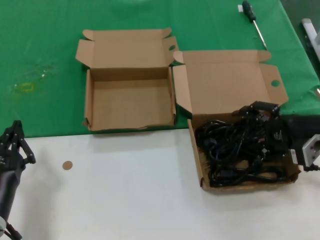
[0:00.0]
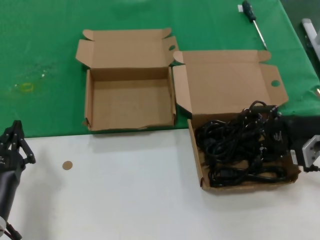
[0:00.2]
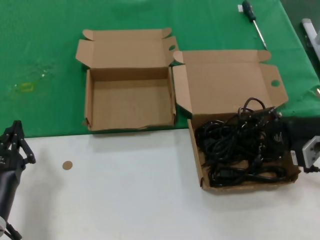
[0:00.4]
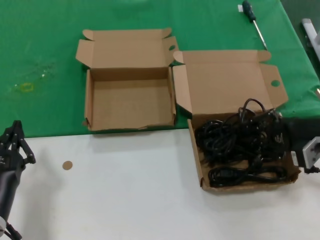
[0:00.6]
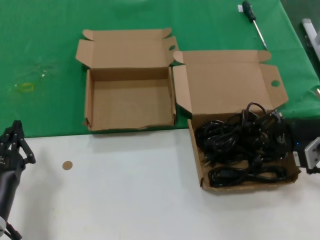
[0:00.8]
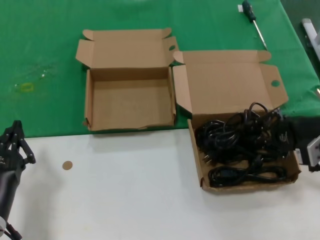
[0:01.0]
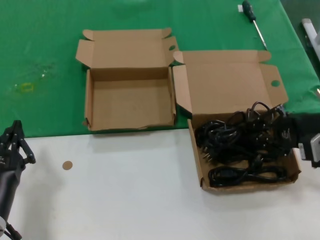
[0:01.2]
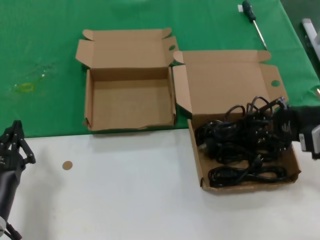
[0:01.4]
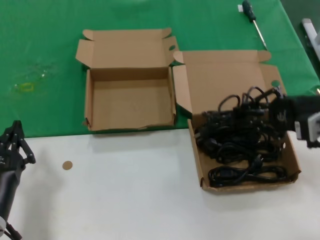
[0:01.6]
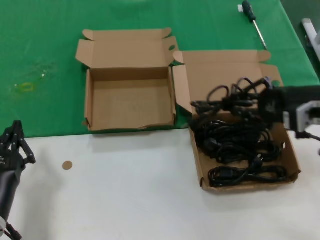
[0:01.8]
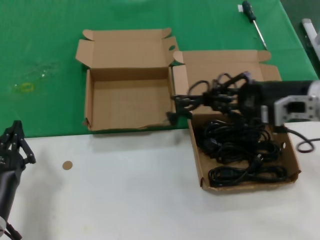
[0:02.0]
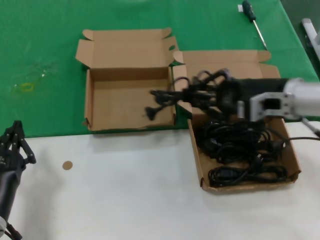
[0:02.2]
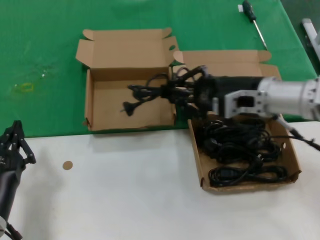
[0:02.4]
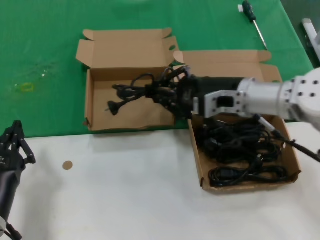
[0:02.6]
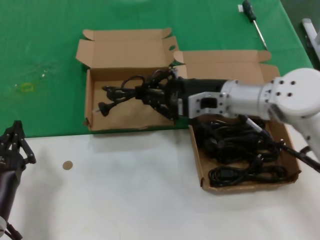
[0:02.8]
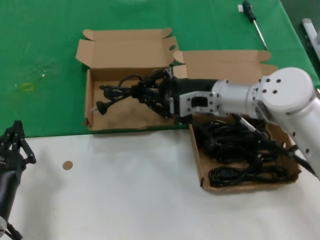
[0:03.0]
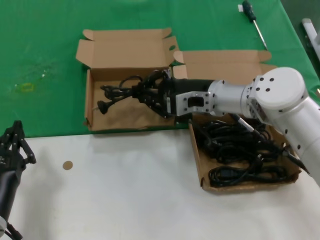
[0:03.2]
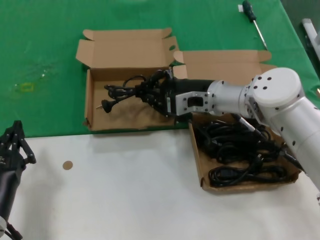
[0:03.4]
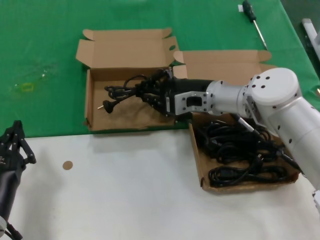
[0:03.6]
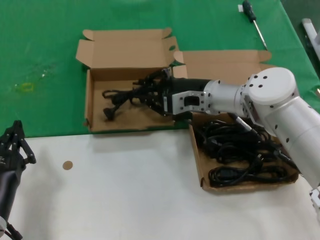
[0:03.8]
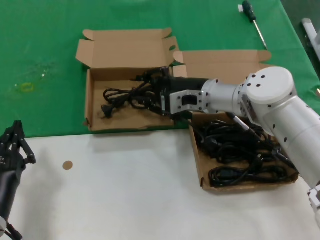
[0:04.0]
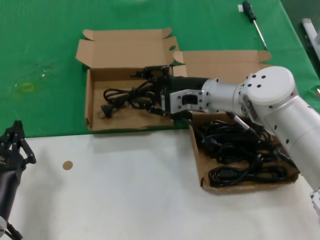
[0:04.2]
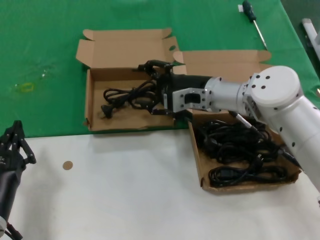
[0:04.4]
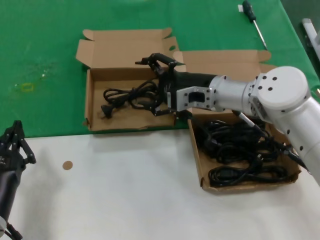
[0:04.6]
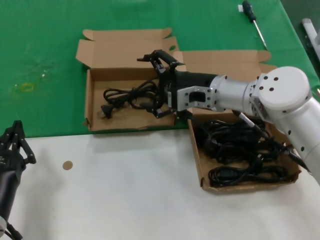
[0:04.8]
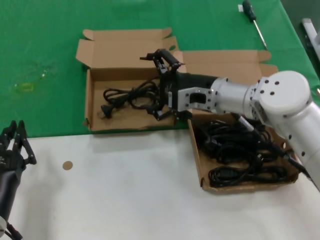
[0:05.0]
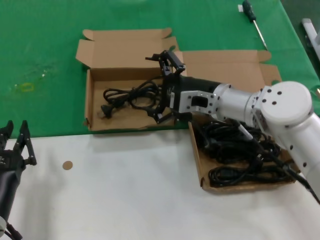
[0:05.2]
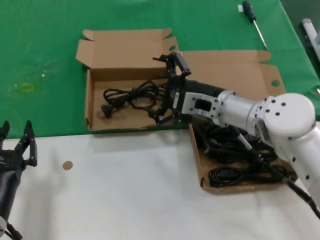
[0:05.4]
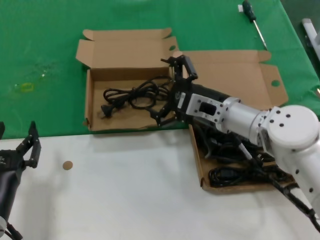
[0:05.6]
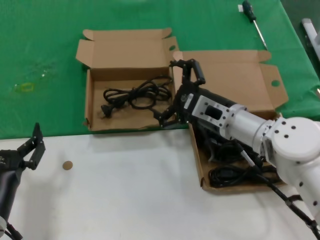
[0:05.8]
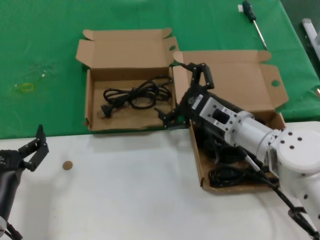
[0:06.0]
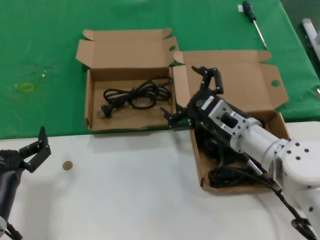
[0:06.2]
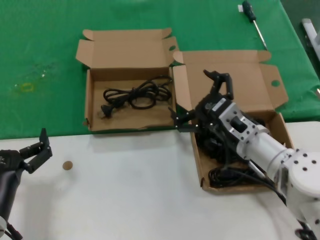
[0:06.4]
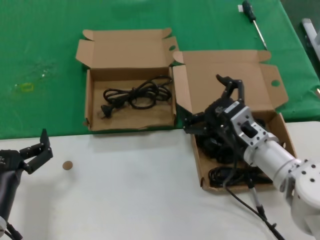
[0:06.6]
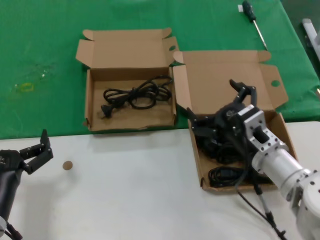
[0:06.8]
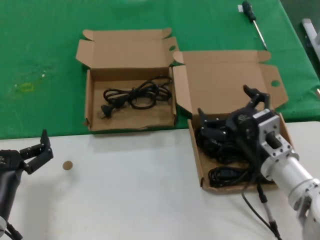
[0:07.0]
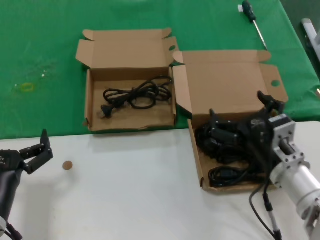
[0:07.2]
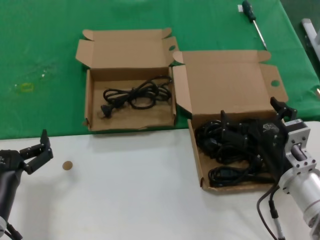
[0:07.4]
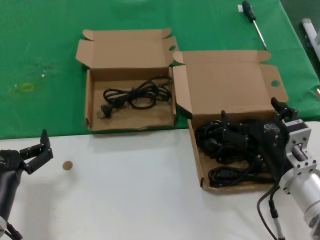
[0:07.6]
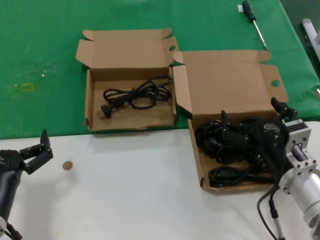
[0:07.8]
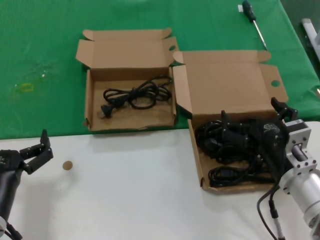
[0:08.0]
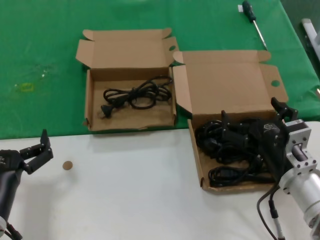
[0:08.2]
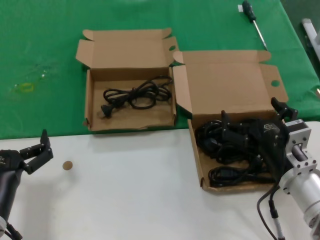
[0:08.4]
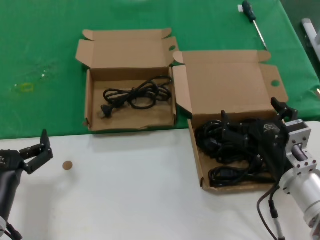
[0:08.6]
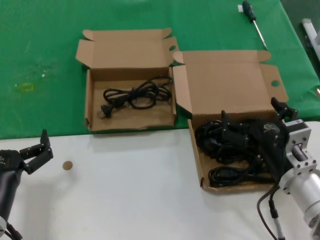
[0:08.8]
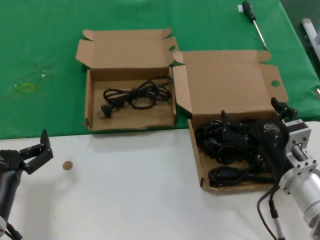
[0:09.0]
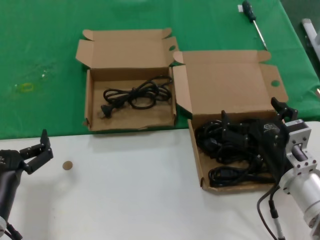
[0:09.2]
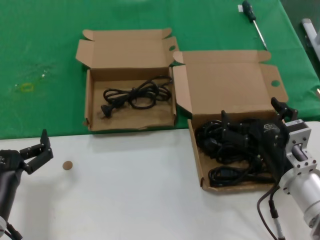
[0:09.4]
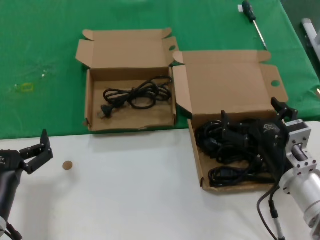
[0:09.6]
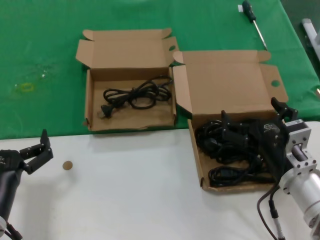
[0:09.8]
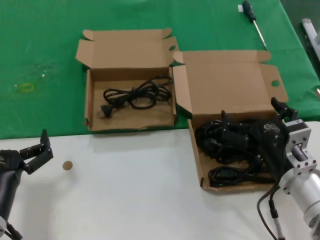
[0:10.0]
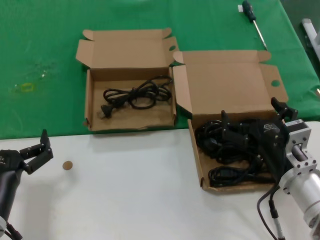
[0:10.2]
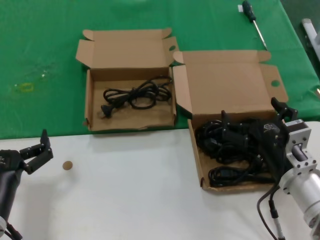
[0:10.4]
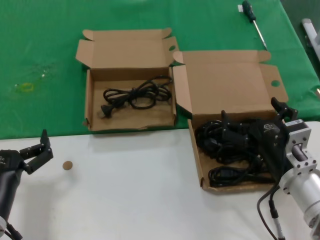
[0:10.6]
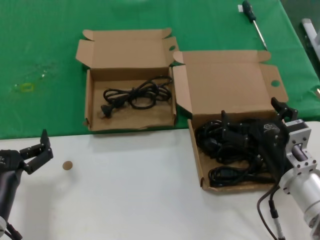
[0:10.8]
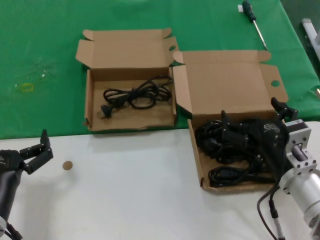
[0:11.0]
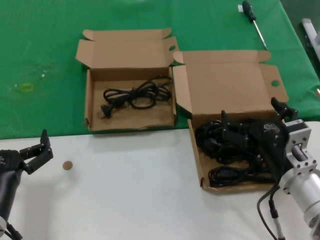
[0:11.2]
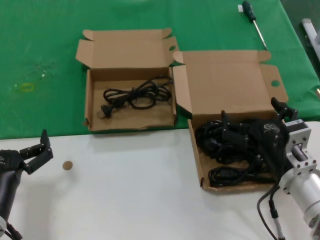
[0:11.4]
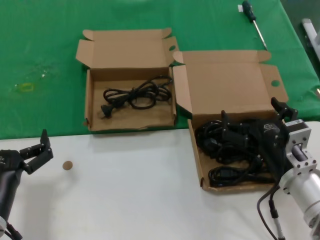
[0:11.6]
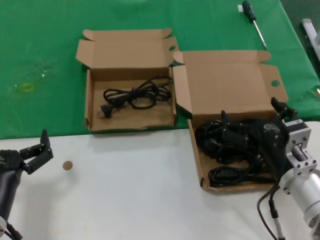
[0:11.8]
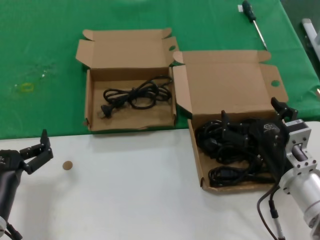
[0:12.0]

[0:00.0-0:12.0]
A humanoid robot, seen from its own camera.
Task of the whole recording: take the parts from the box containing them and put them into an empty box.
Step, 0:00.8 to 0:04.4: Place the data cable in the another box.
0:00.0 to 0:01.6: The right hand moves about 5 cm.
0:01.6 to 0:03.0: The right hand travels to the left and forward by roughly 20 cm.
0:03.0 to 0:04.4: The hands make only small movements.
0:04.4 to 0:06.0: The right hand moves backward and downward, roughly 10 cm.
0:06.0 to 0:07.6: The right hand is displaced backward and to the right by approximately 15 cm.
0:07.6 to 0:12.0: Both hands stay put.

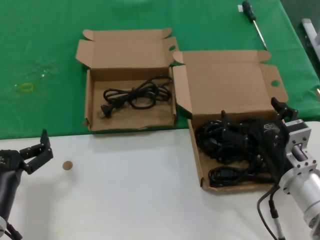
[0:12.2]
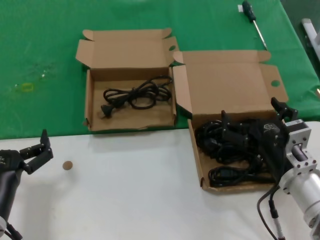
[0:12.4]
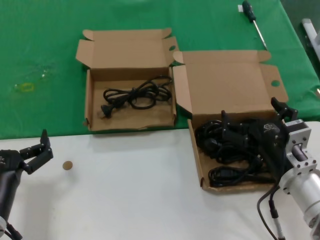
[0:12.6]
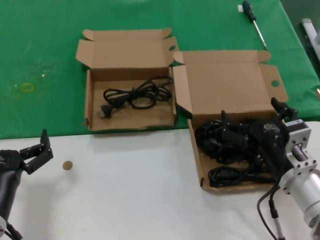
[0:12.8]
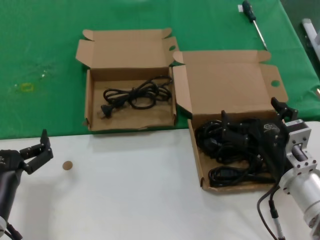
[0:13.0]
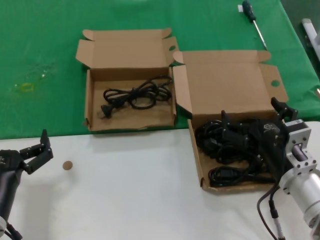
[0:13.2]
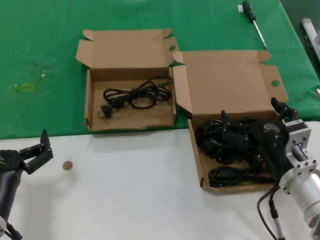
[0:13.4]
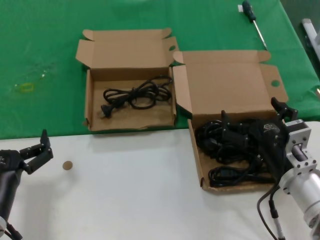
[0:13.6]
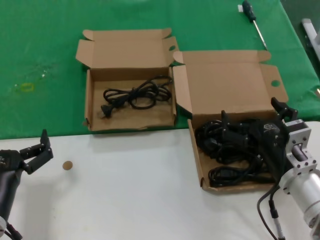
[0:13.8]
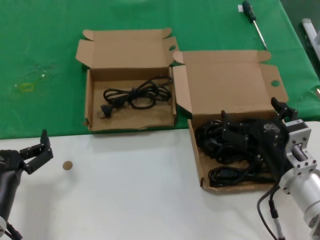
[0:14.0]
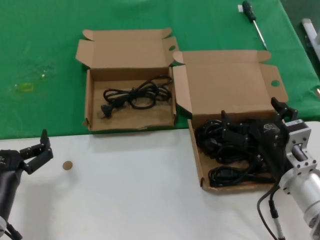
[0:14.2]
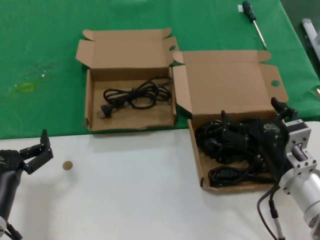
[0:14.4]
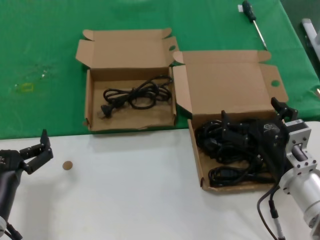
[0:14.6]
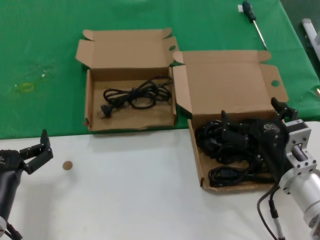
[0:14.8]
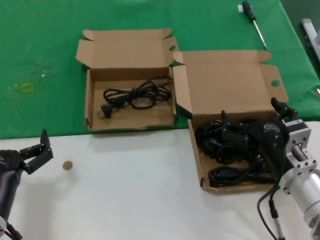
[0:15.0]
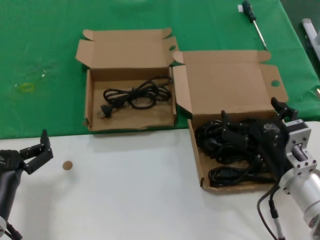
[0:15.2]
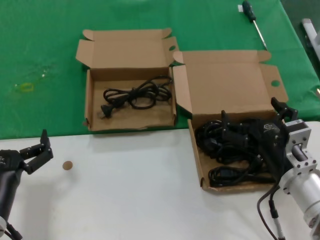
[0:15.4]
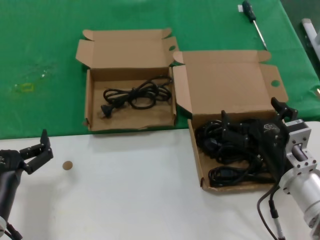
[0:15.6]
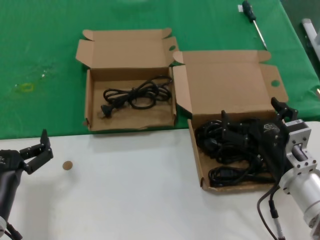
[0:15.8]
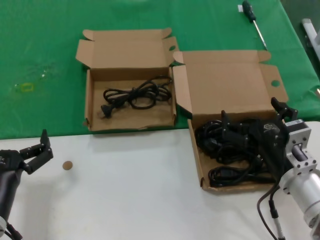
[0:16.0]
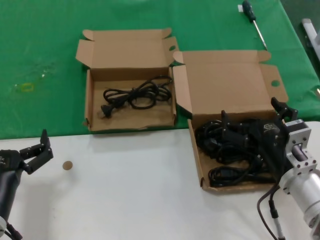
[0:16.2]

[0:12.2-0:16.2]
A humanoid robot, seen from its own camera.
Task of the whole recording: take the parts from the box containing them and put them into an empty box.
0:12.2 to 0:16.2: Both hands stay about where they are.

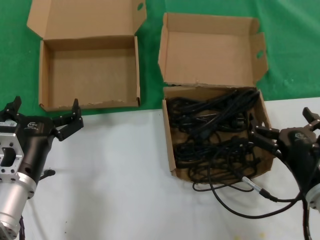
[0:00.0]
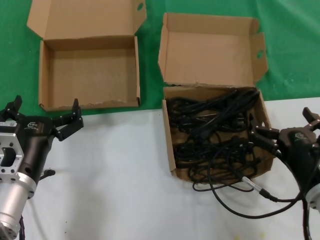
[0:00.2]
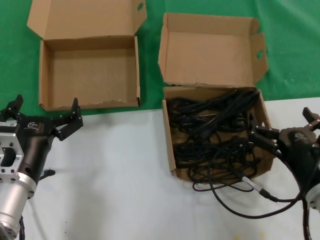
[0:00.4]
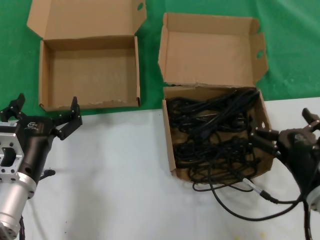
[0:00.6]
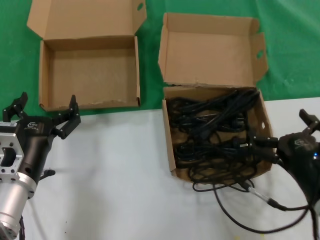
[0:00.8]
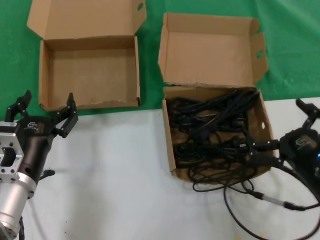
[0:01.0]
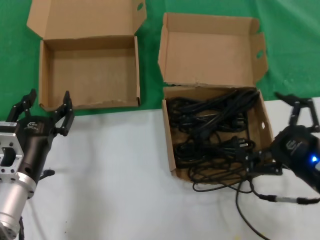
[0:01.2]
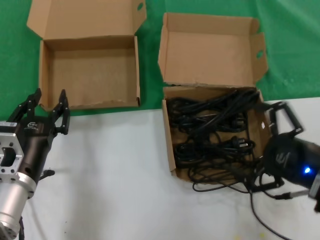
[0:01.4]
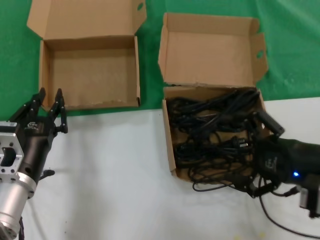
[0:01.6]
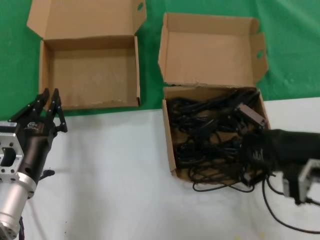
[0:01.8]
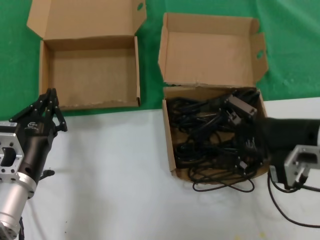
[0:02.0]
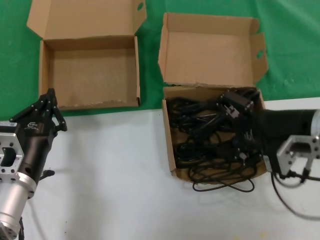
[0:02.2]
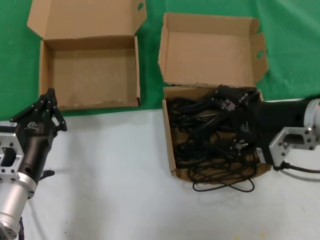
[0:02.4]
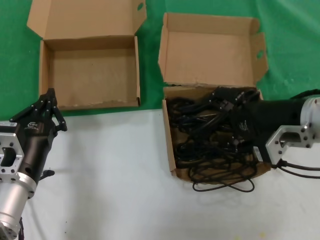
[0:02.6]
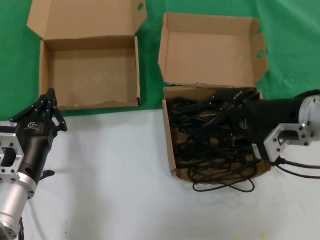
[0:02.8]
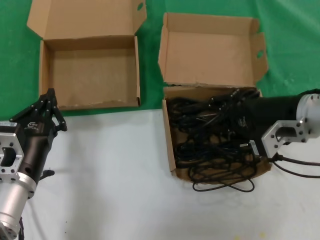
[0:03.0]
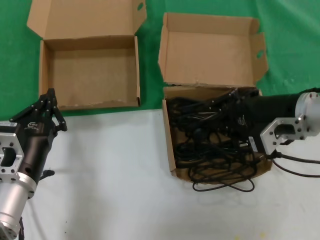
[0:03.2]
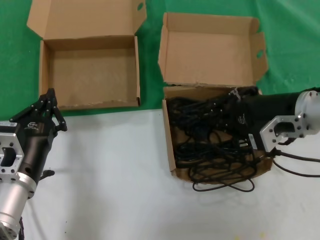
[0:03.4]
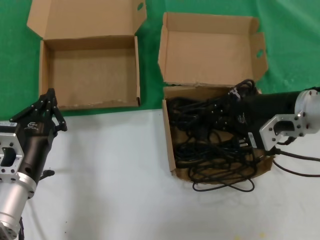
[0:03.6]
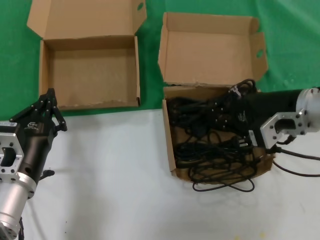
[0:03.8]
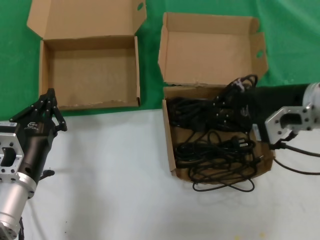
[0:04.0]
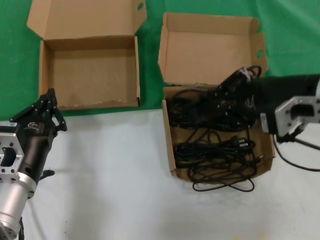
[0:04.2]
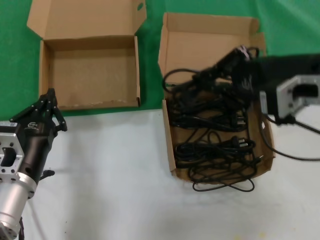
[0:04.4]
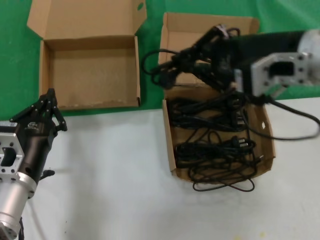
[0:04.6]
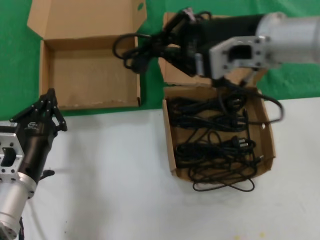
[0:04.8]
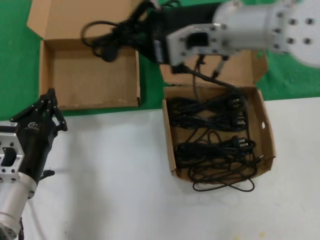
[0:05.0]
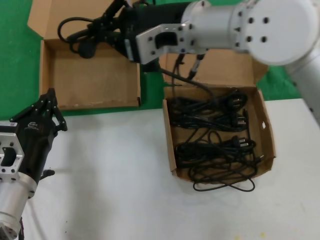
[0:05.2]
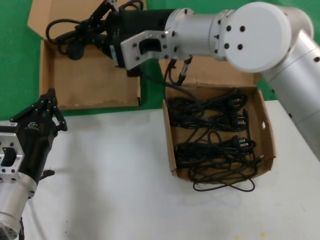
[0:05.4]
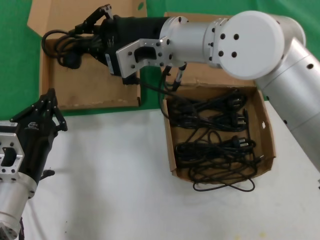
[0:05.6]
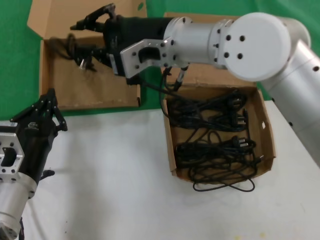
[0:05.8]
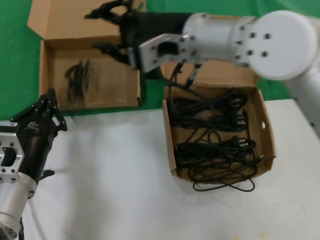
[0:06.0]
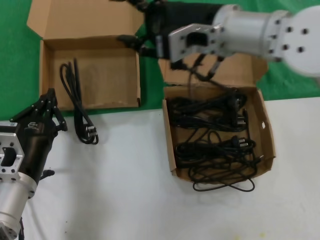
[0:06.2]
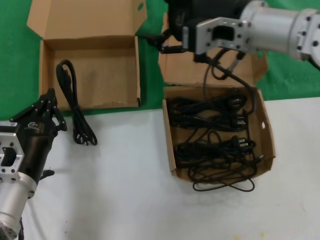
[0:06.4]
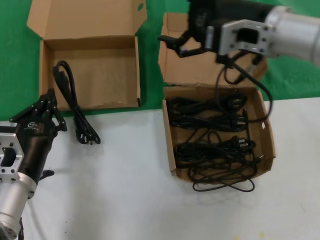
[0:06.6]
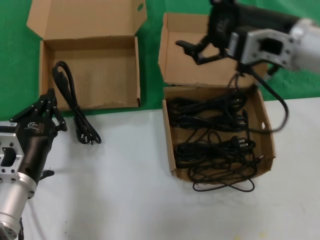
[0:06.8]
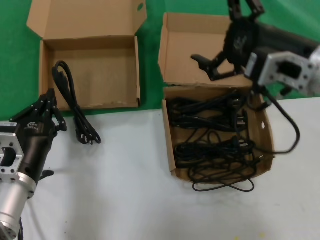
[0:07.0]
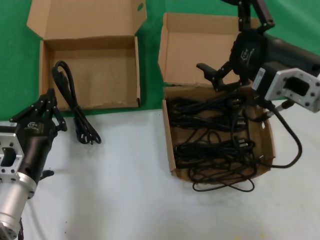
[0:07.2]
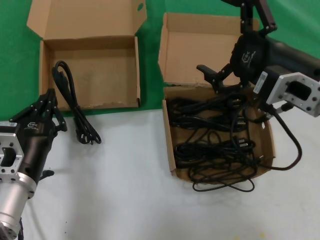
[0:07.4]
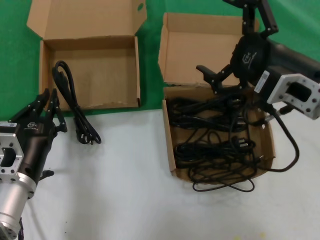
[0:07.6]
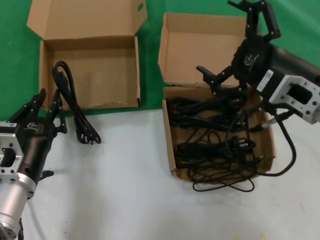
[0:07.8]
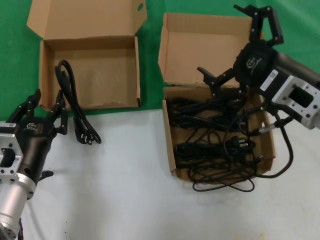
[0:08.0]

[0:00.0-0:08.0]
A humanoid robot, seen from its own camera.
Task of the whole recording: take the parts from the box containing them and put them into an empty box.
Step, 0:00.0 to 0:03.4: Grasp the data cable.
Step, 0:03.6 to 0:06.2: Place the data cable in the another box.
0:00.0 to 0:01.6: The right hand shifts about 10 cm upward and to the right.
0:01.6 to 0:03.2: The right hand is displaced forward, to the left and upward by about 15 cm.
0:03.2 to 0:04.8: The right hand goes about 15 cm upward and to the left.
0:04.8 to 0:06.4: The right hand travels to the left and back again, about 10 cm each way.
0:06.4 to 0:08.0: The right hand heads downward, backward and to the right, covering some 15 cm.
